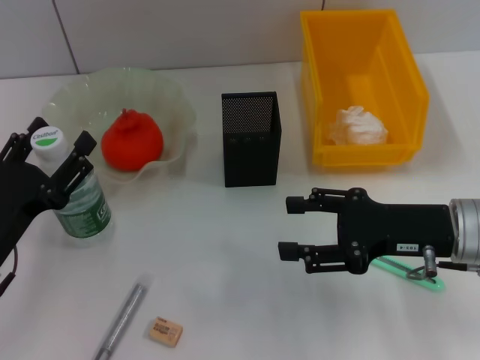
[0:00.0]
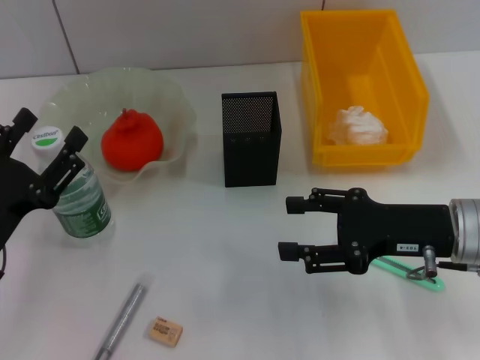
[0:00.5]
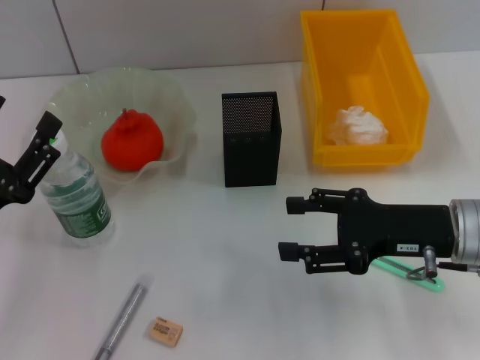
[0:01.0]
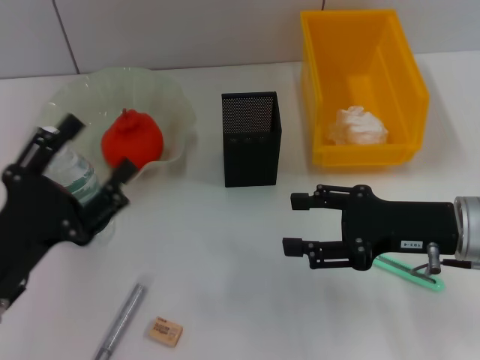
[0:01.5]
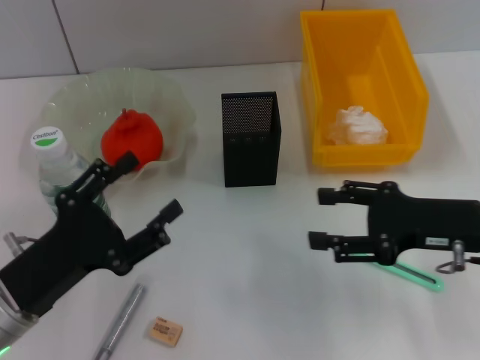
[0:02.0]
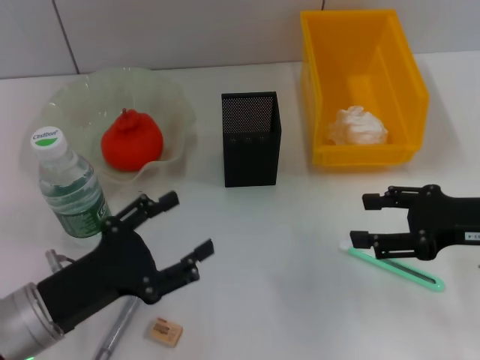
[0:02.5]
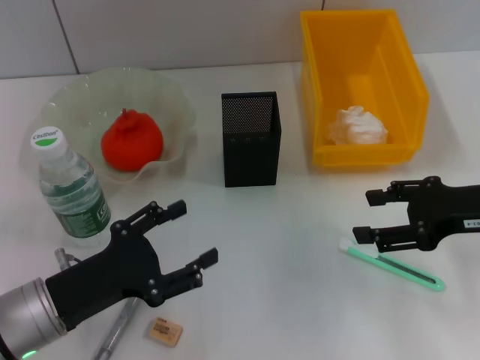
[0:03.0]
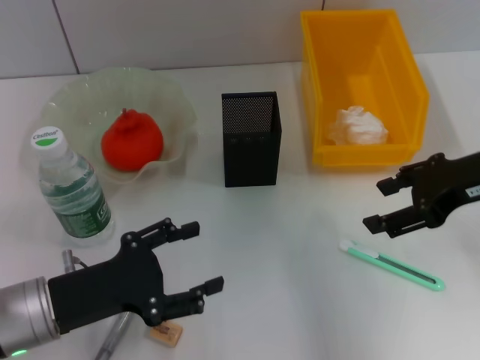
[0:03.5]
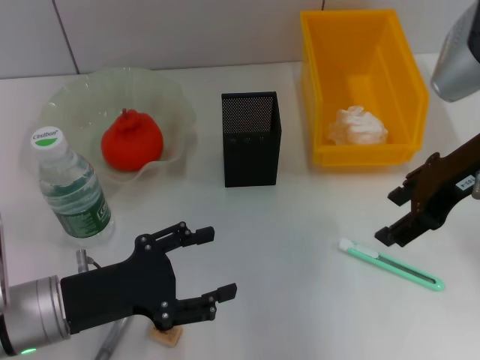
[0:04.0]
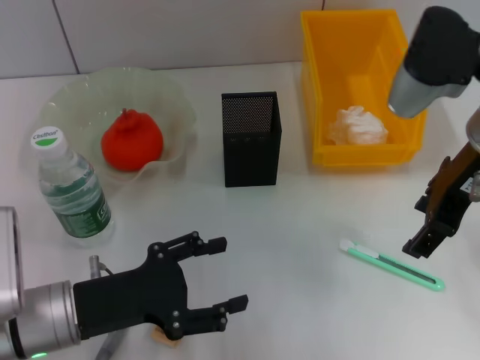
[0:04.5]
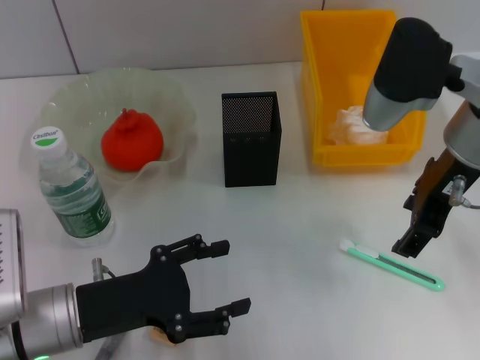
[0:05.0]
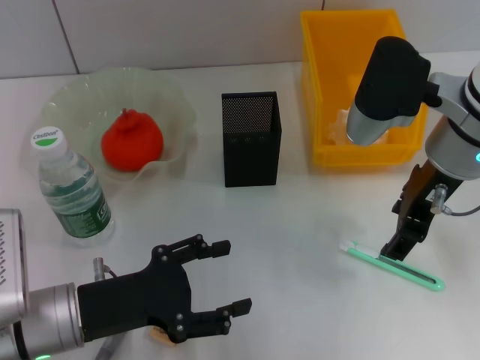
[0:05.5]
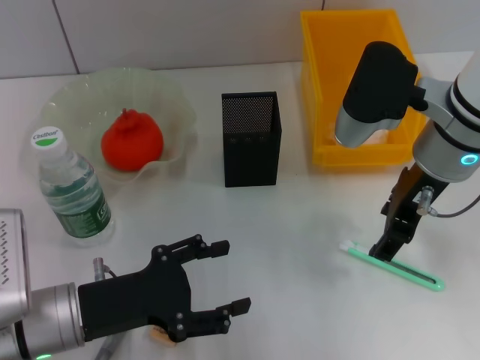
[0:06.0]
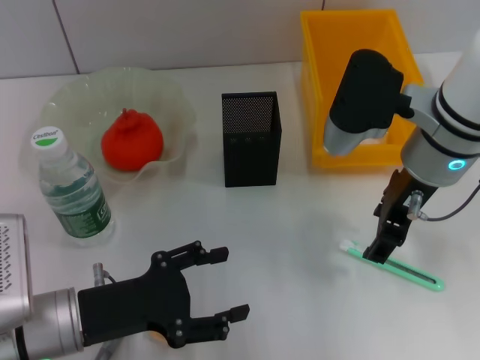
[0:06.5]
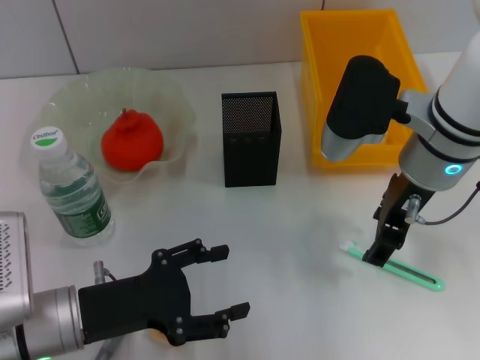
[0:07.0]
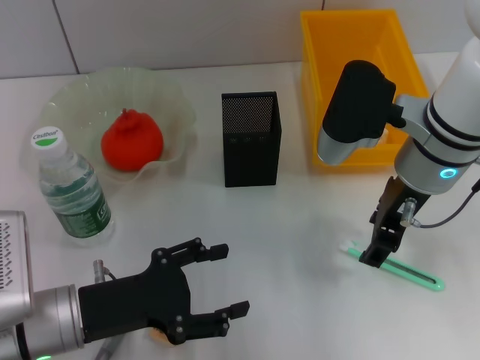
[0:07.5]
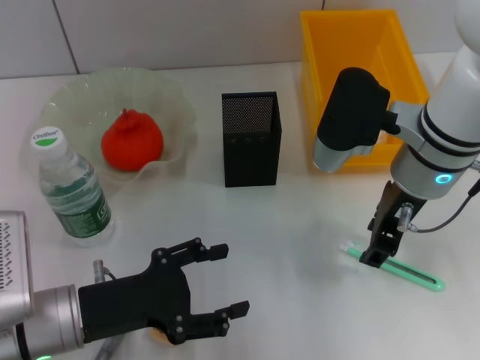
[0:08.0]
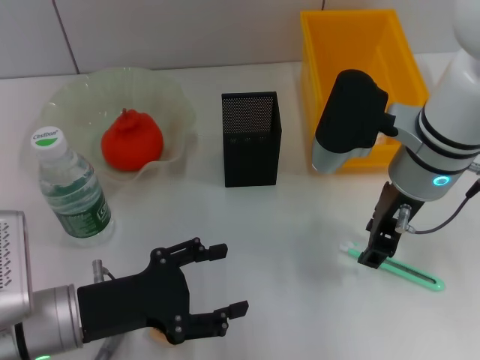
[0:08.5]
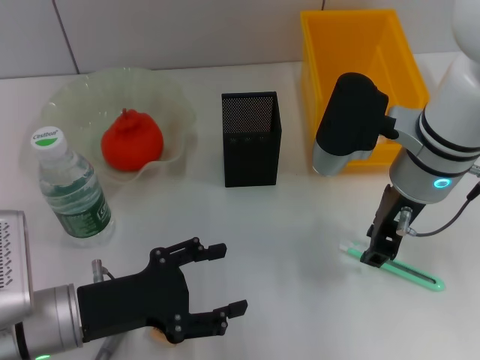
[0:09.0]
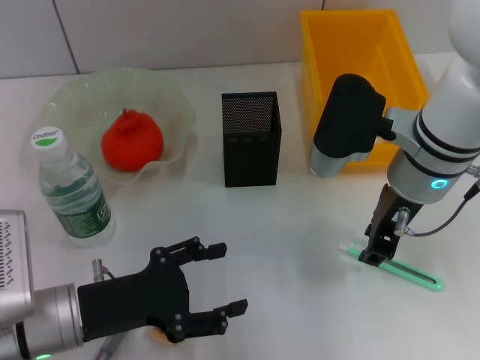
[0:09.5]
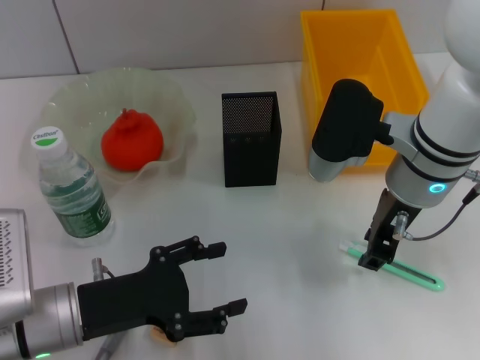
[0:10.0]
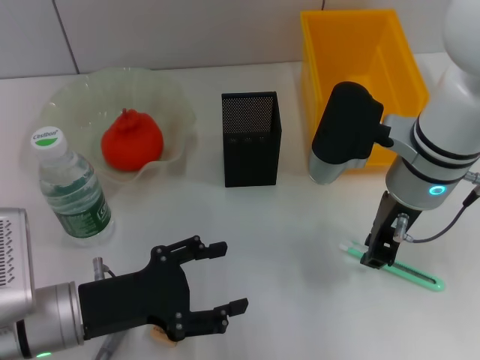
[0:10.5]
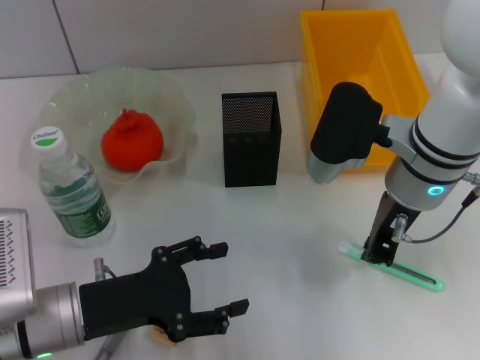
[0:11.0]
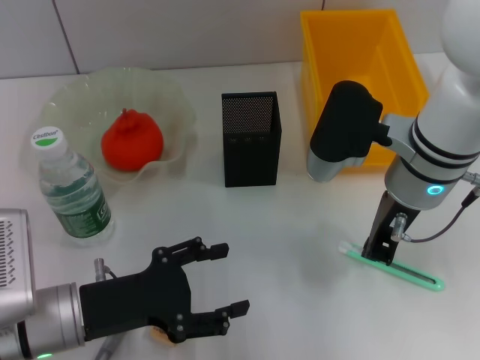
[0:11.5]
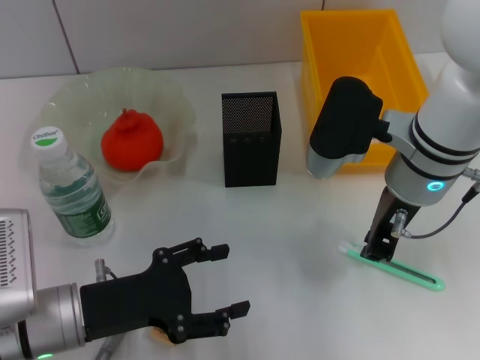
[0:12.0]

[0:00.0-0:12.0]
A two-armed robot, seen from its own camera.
0:02.0 to 0:04.0: The right gripper goes some 10 cm upward and forward.
0:04.0 to 0:06.0: The right gripper is displaced to the left by about 5 cm.
0:06.0 to 0:08.0: The grippers make only small movements.
0:08.0 to 0:10.0: Neither gripper changes place.
0:10.0 to 0:12.0: The right gripper closes up.

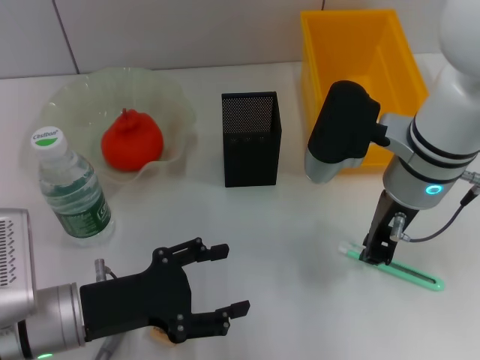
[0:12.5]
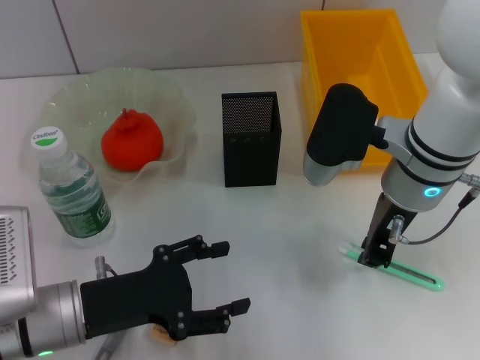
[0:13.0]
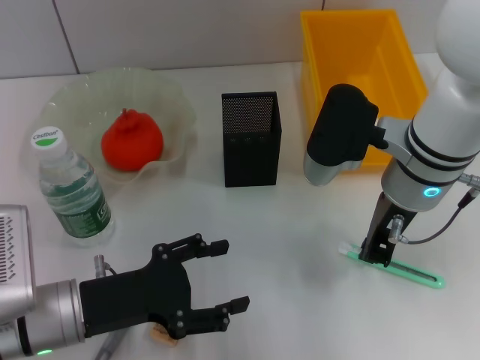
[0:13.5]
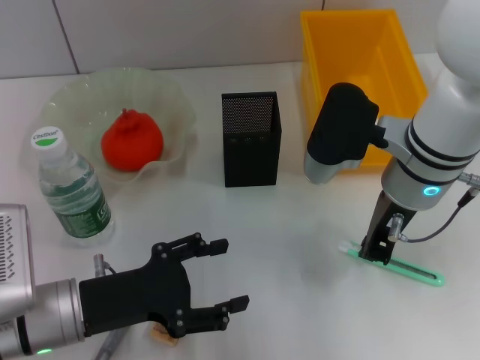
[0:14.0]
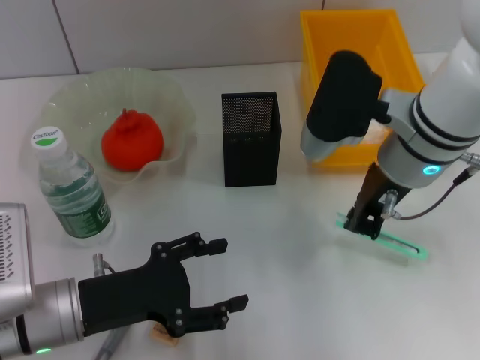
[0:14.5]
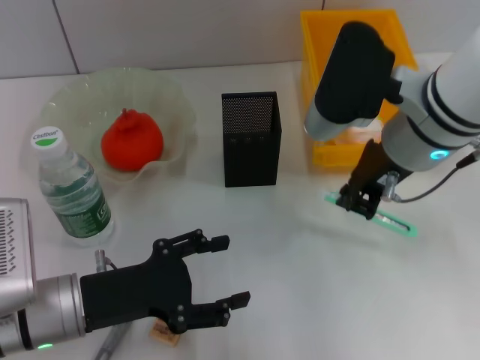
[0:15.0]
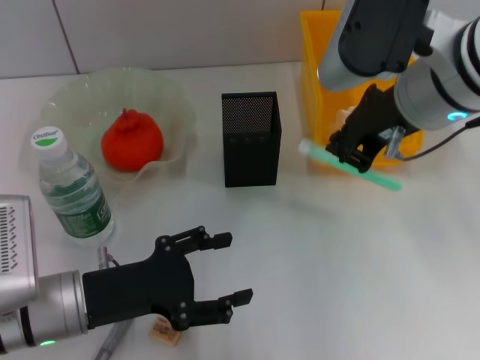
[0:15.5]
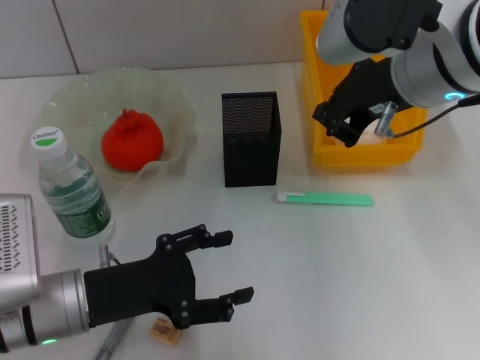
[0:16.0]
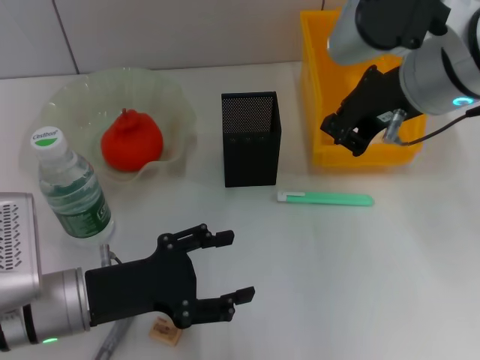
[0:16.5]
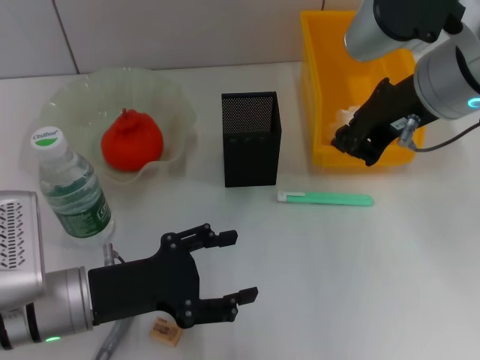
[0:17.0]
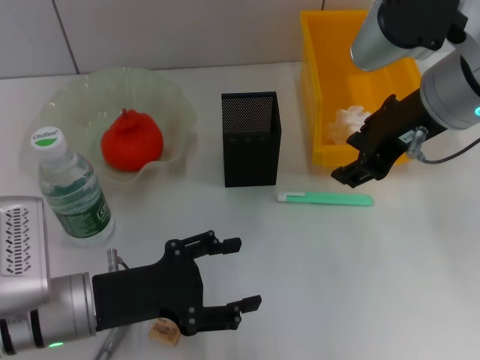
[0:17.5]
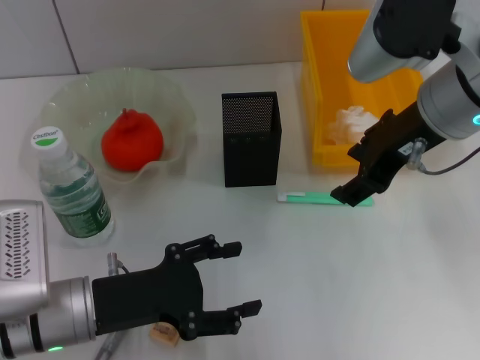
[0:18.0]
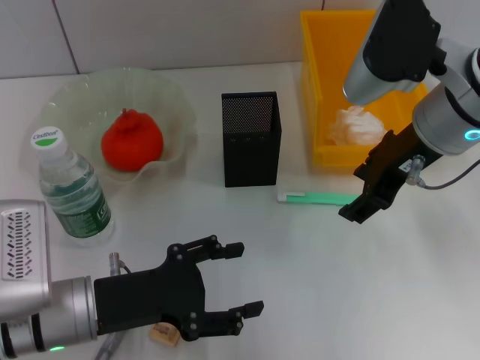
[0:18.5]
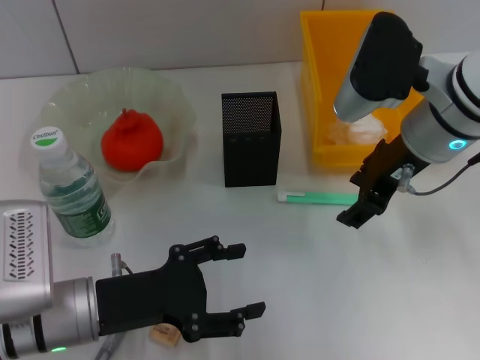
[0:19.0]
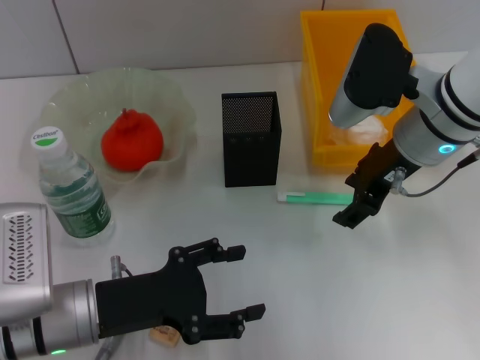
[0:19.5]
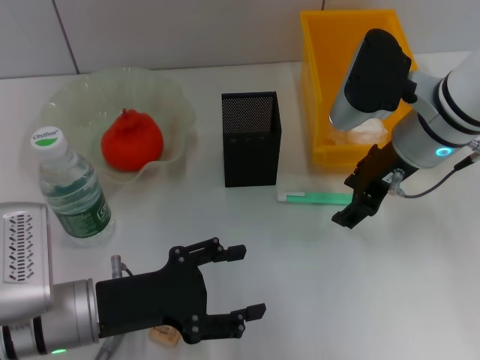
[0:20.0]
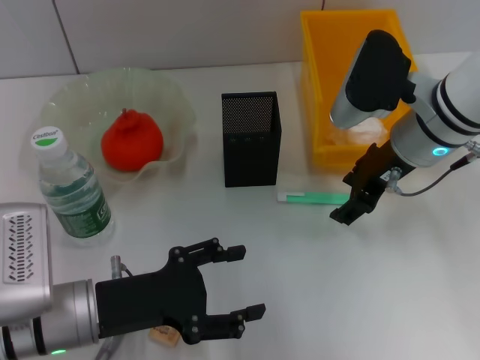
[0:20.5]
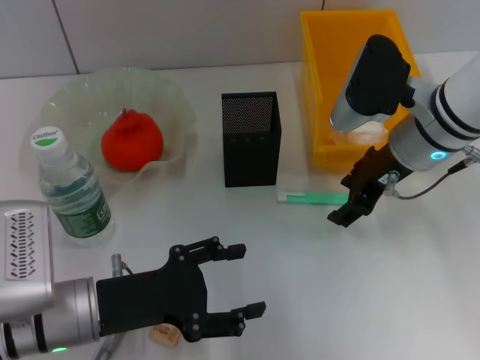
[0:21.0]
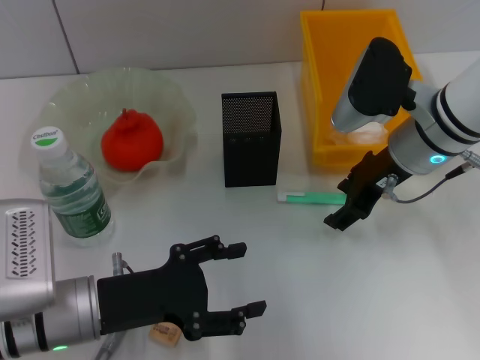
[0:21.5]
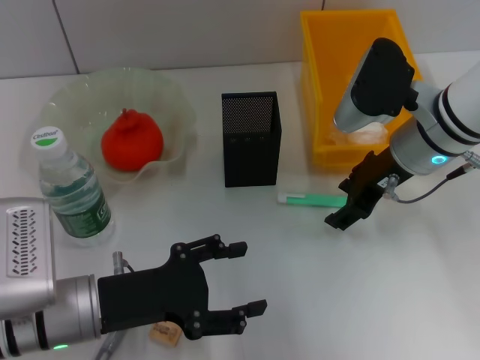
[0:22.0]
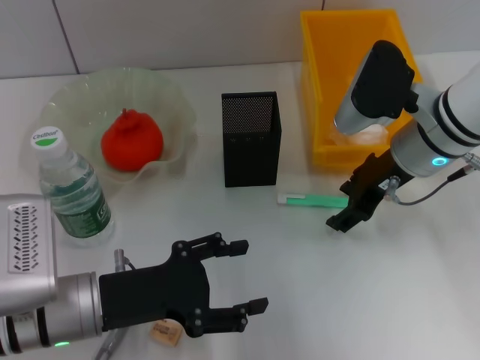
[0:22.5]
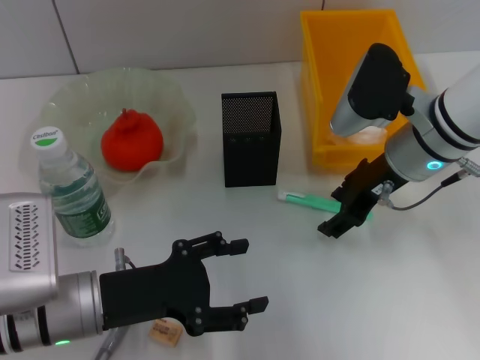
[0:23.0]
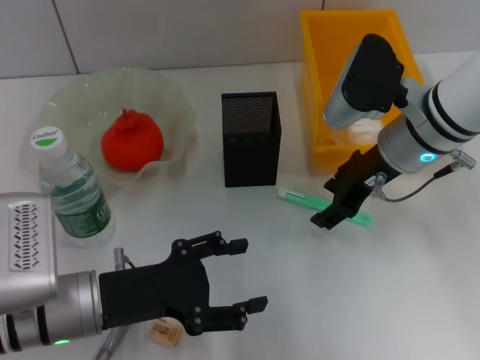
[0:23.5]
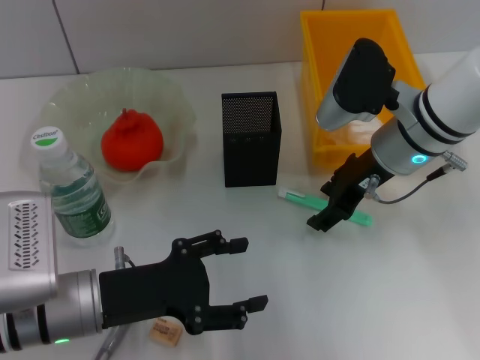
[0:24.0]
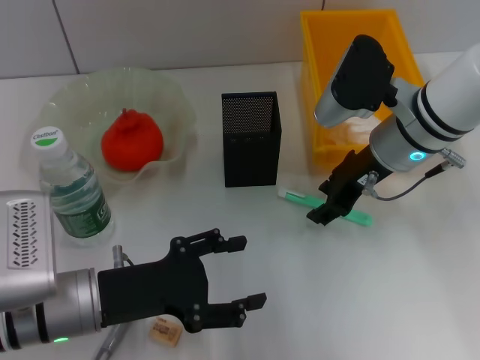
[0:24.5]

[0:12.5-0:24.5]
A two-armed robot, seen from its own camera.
0:12.5 to 0:14.5: The grippers stay close to where they were, moving slightly.
0:14.5 to 0:16.5: The right gripper moves upward, about 10 cm.
0:16.5 to 0:18.5: The right gripper opens its fingers.
0:18.5 to 0:20.5: The right gripper travels downward by some 5 cm.
0:20.5 to 0:24.5: The grippers move only a little.

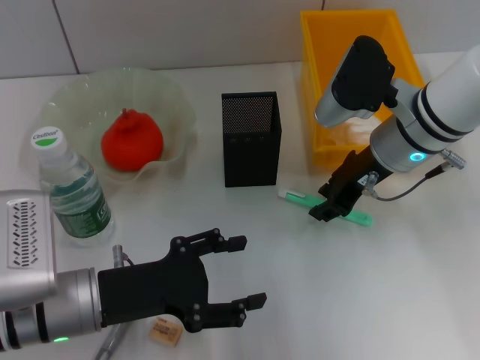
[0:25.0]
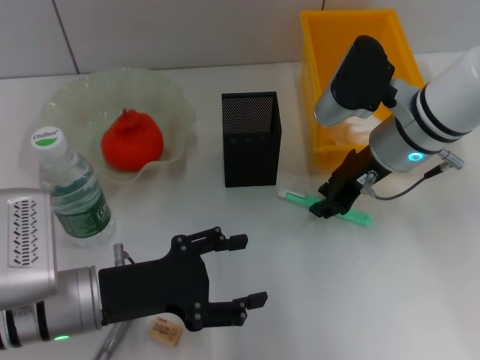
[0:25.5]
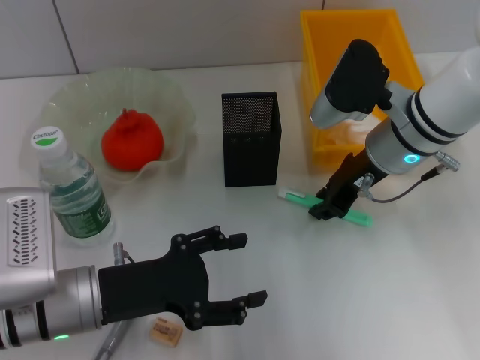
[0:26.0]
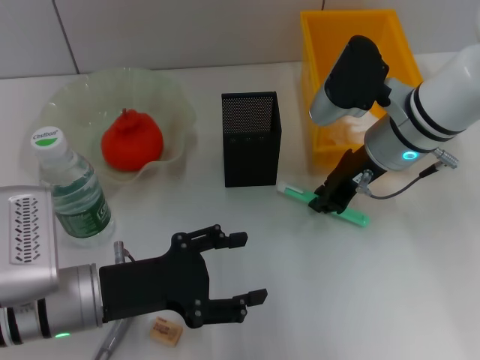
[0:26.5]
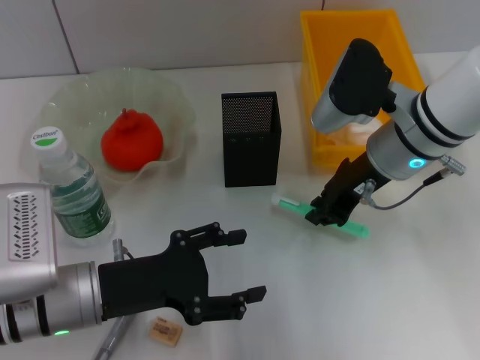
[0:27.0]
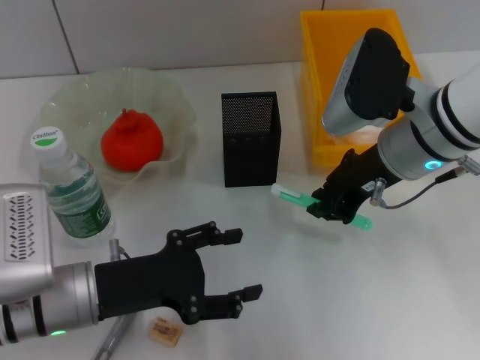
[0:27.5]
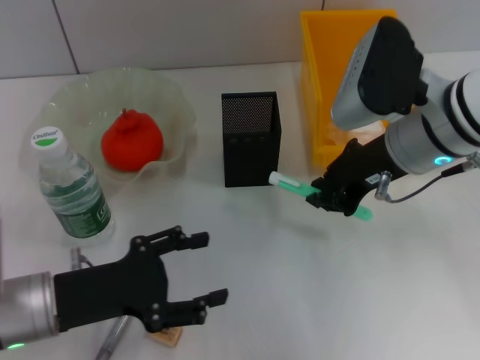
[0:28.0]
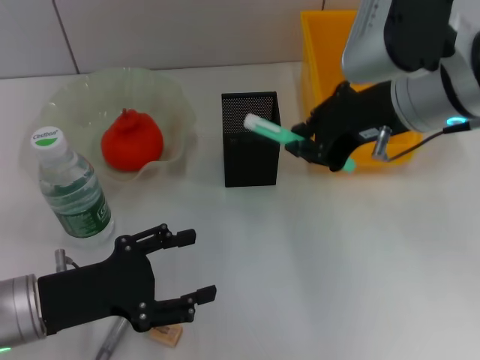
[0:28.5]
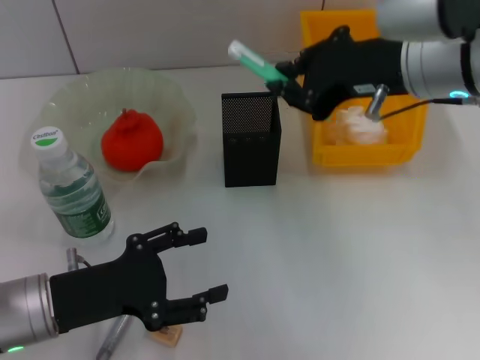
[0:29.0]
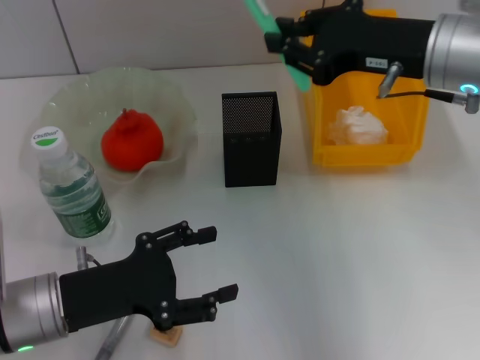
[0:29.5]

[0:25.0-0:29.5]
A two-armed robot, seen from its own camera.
0:25.0 to 0:27.0: The right gripper closes its fingers.
0:27.0 to 0:29.5: The right gripper is displaced upward by about 10 cm.
